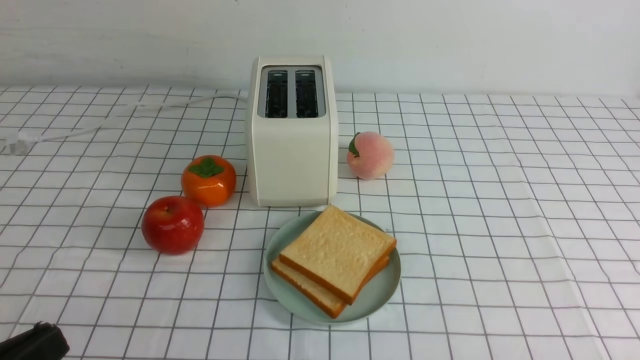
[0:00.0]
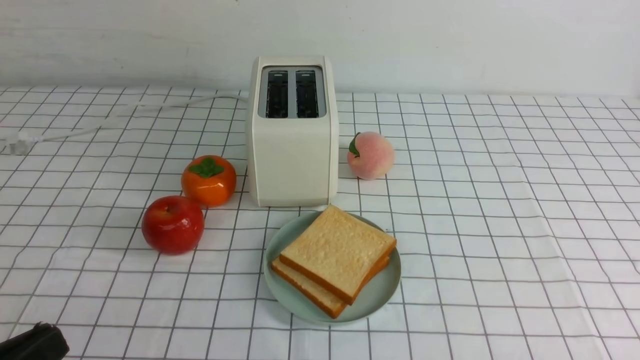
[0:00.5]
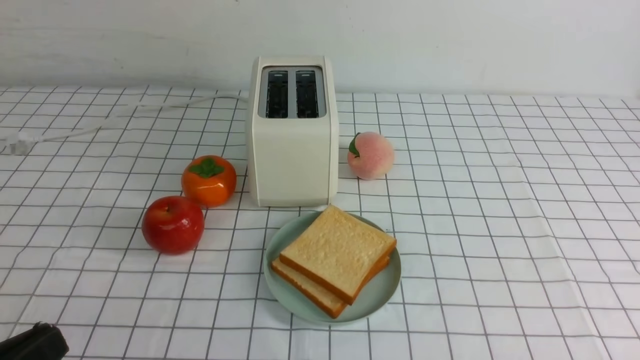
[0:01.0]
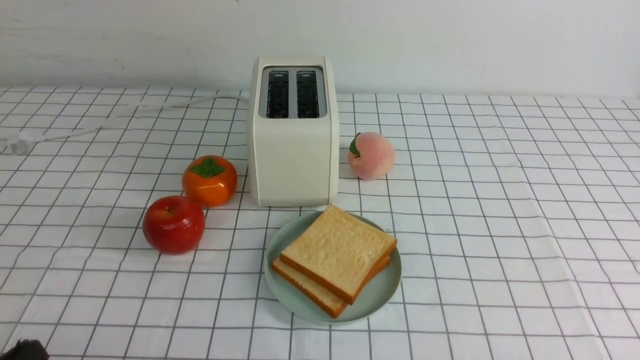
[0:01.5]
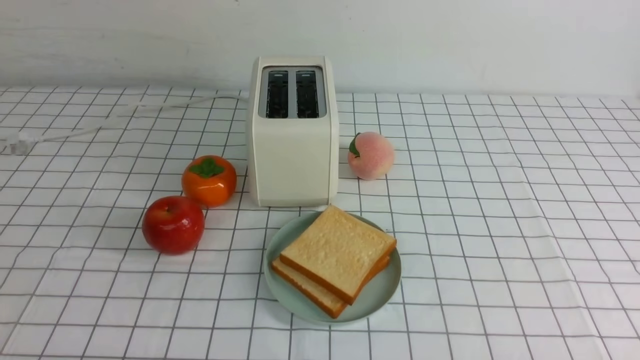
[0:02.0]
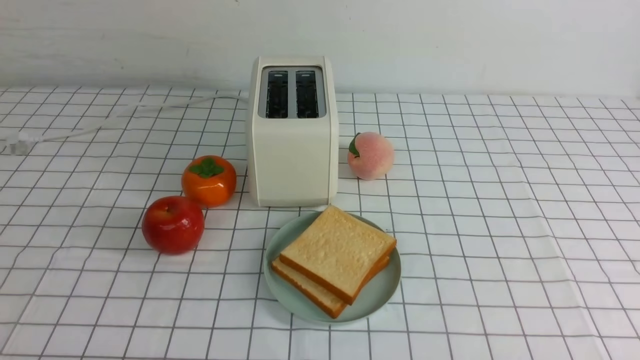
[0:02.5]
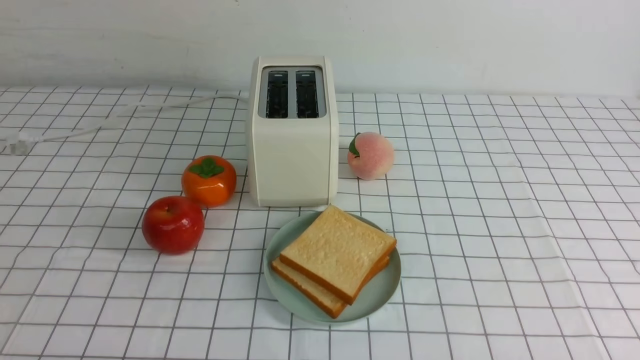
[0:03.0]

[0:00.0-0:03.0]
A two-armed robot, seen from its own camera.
Task of the whole recording: take toasted bread from bread machine on white checkered table place on plate.
0:00.0 to 0:01.5: The left gripper travels downward by about 5 cm.

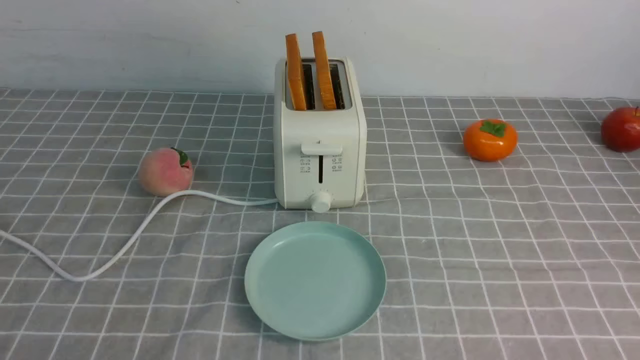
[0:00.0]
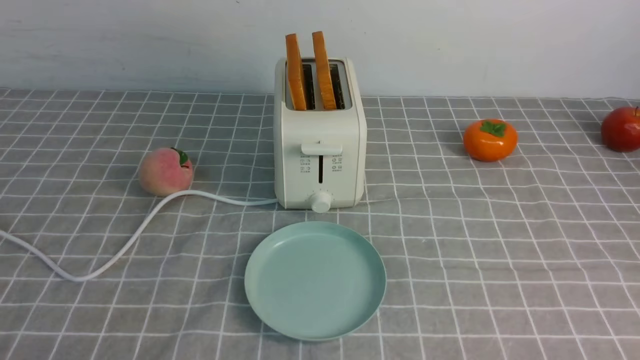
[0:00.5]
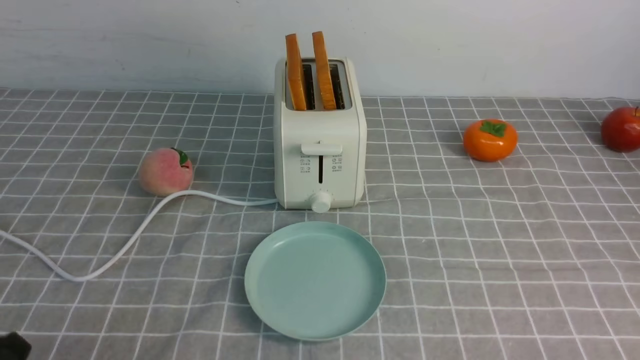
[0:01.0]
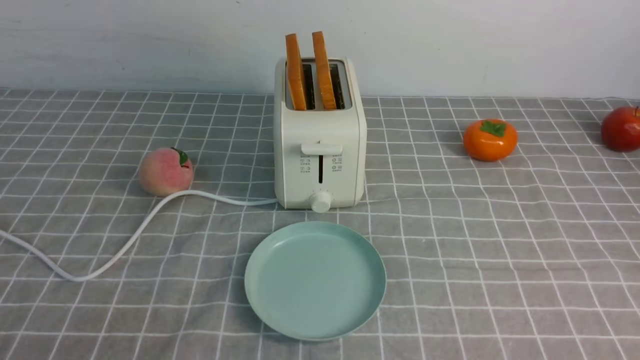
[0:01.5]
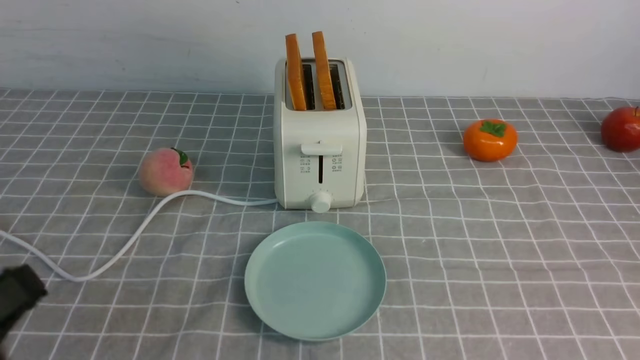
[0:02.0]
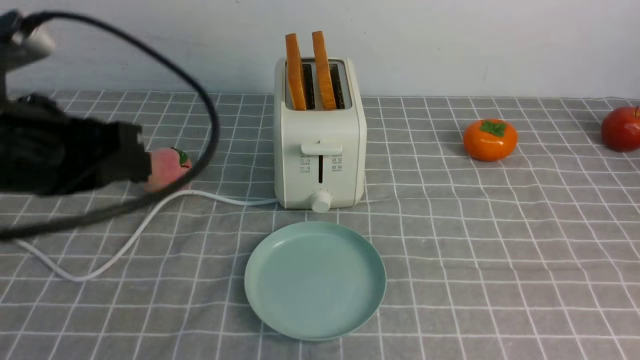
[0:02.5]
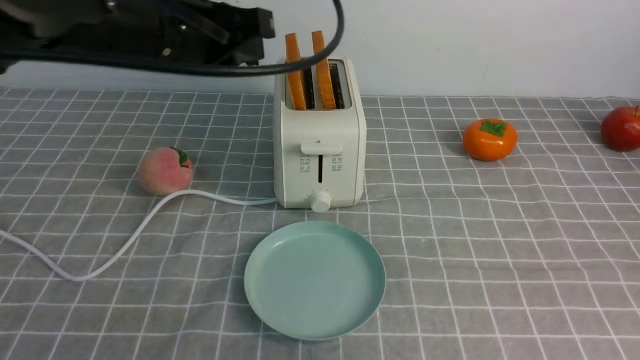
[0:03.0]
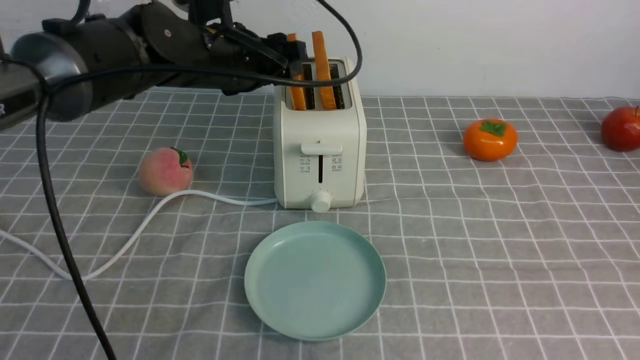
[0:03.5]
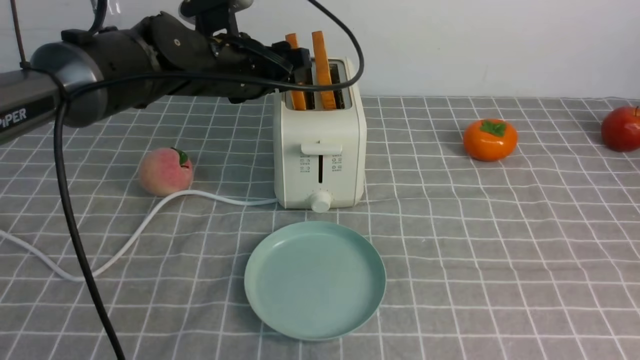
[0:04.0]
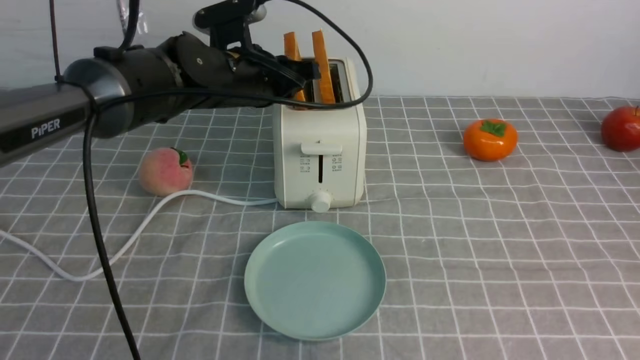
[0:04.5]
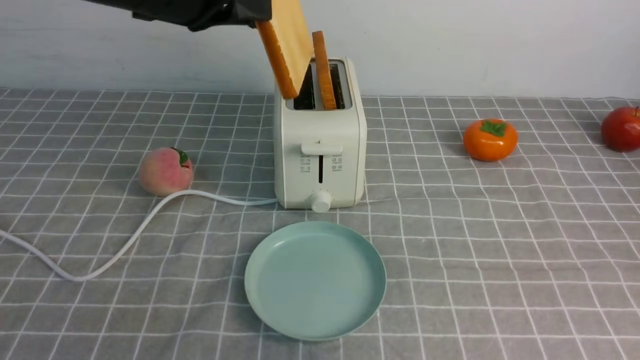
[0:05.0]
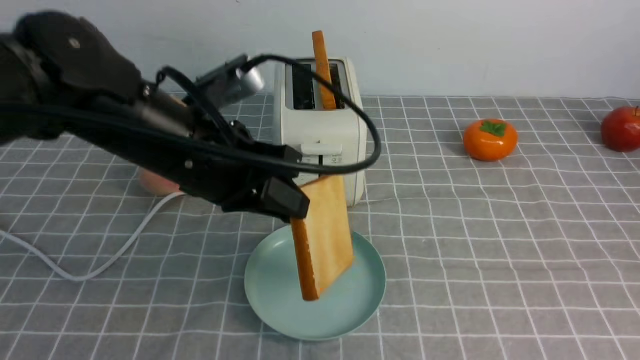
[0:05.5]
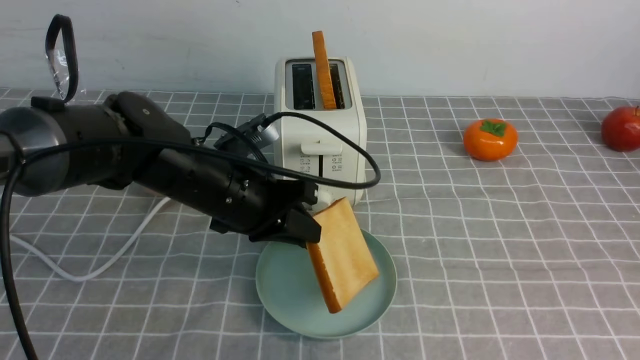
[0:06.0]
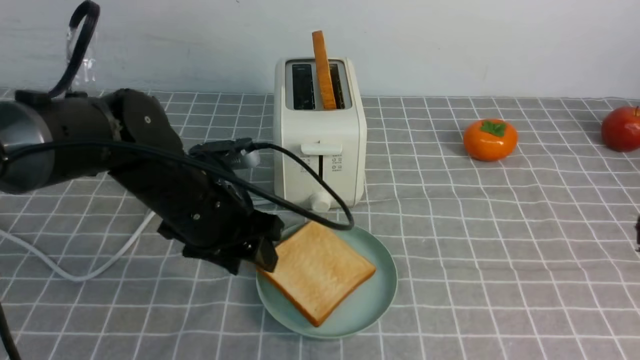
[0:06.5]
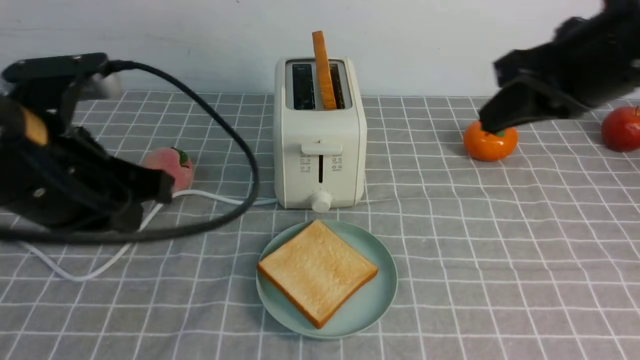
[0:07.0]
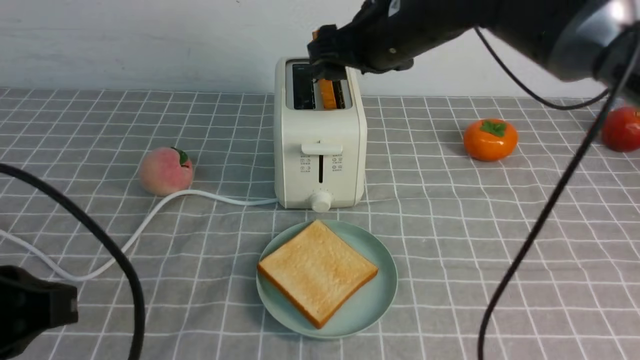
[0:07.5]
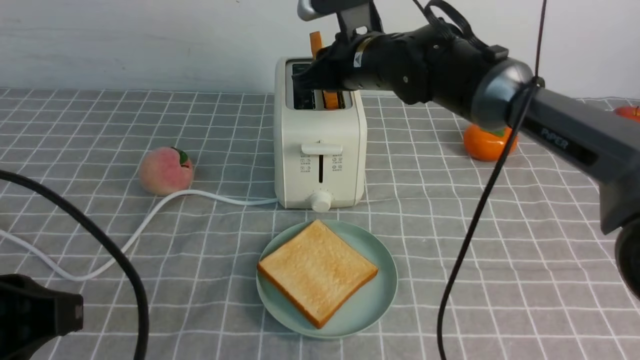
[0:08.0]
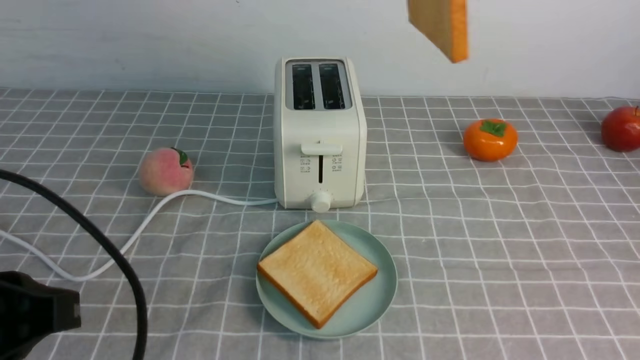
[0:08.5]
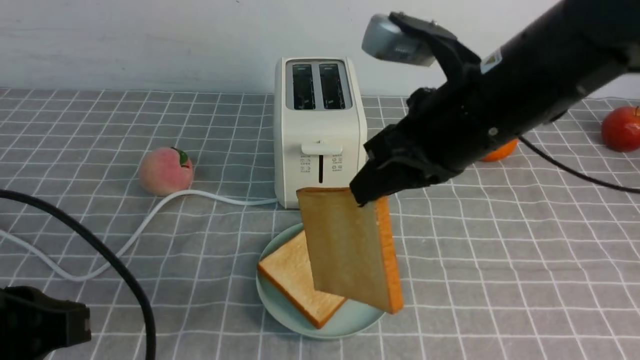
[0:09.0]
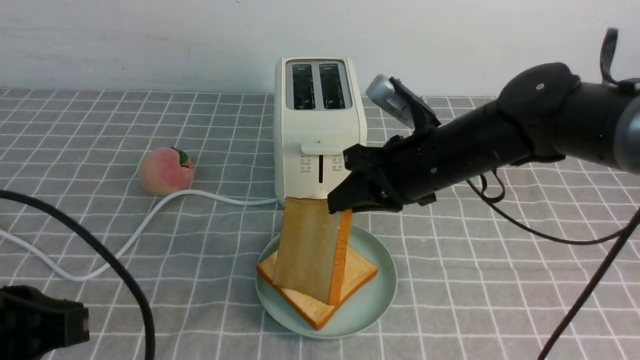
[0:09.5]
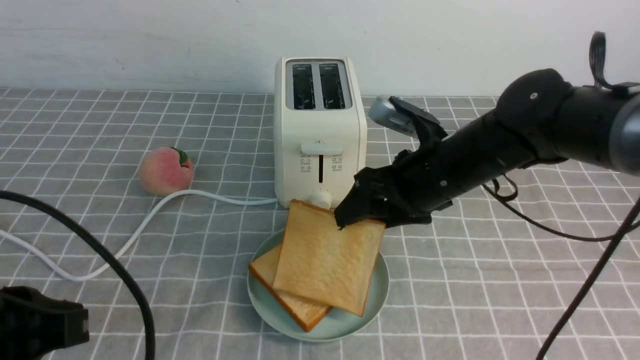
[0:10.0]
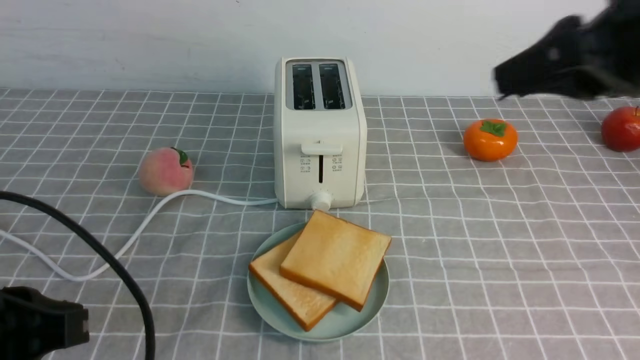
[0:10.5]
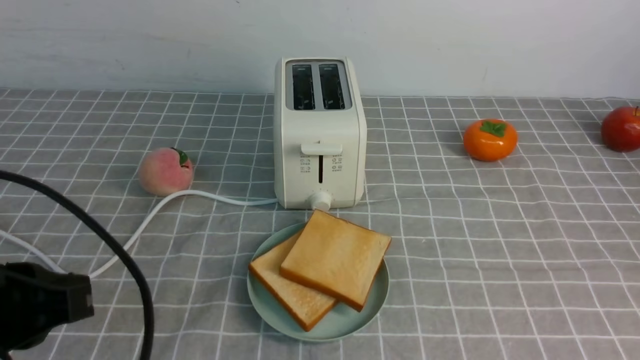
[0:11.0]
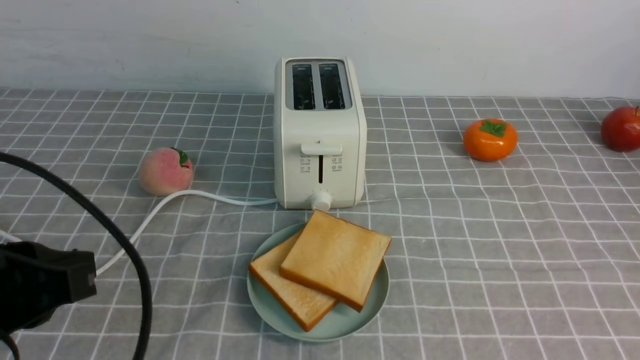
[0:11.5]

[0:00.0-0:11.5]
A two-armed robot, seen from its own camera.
Task of the whole recording: take toasted bread from bread machine on grey coffee table place on plate.
Step, 0:00.0 to 0:04.5: use the left arm to take out a slice of bread.
Step, 0:05.5 to 0:06.5: use the left arm to put a slice of bread into the empty plate.
Step, 0:07.0 to 0:08.0: use the right arm to take out a slice of bread.
Step, 0:08.5 to 0:10.0: use the right arm to put a slice of bread into the plate.
0:00.0 to 0:02.0: The left gripper travels upward by some 10 cm.
0:02.0 to 0:04.0: The right gripper travels forward by some 5 cm. The left gripper is displaced forward by roughly 35 cm, and opens.
0:04.0 to 0:06.0: The left gripper travels backward and downward by some 10 cm, and closes its fingers.
0:06.0 to 0:07.5: The right gripper goes approximately 35 cm forward and to the left, and opens up. The left gripper travels backward, to the left and upward by about 25 cm, and opens and closes again.
0:07.5 to 0:09.5: The right gripper travels downward and backward by roughly 10 cm, and closes.
0:09.5 to 0:11.5: The right gripper goes roughly 40 cm backward and to the right, and opens and closes again.

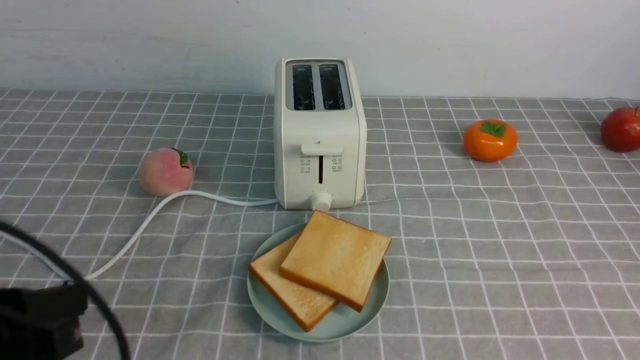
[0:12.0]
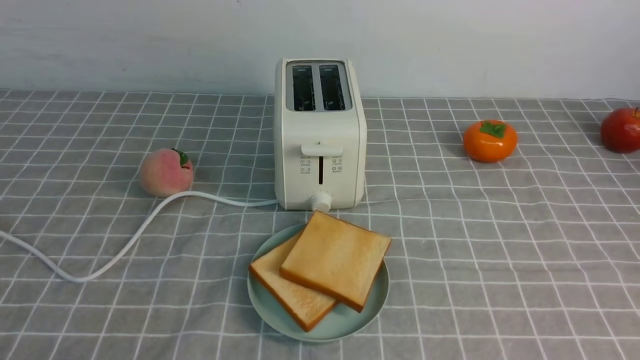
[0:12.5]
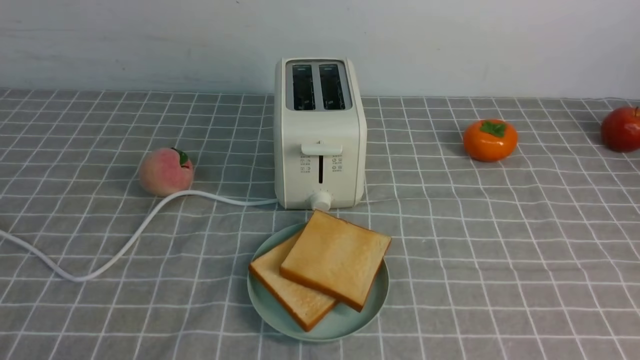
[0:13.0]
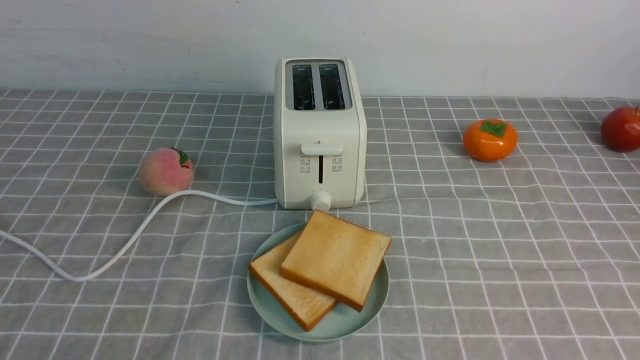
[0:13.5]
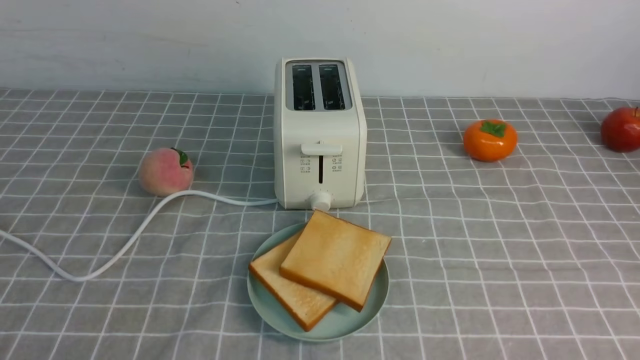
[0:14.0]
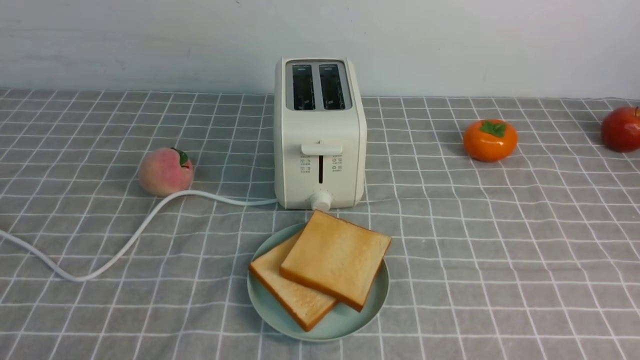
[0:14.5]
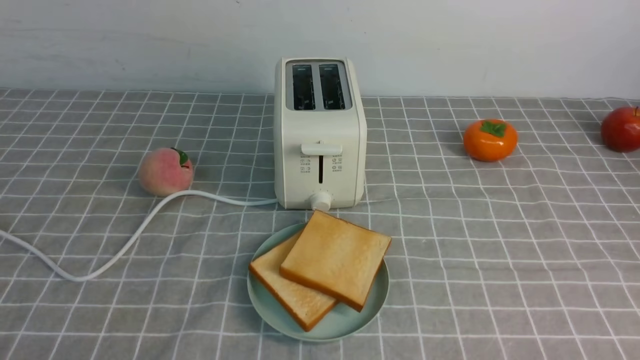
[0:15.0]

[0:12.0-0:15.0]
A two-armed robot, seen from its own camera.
Task of the whole recording: take toasted bread from bread machine on grey coffee table place on plate.
0:12.0 to 0:13.5: The left gripper shifts roughly 10 cm downward.

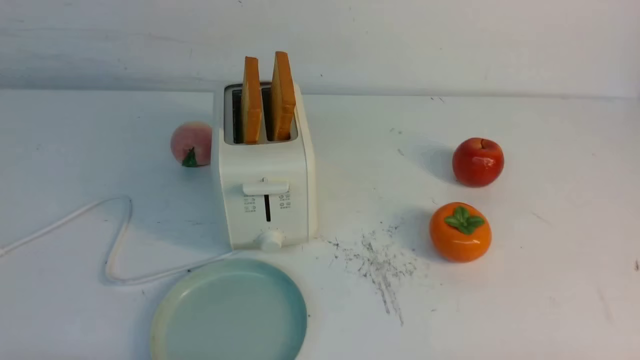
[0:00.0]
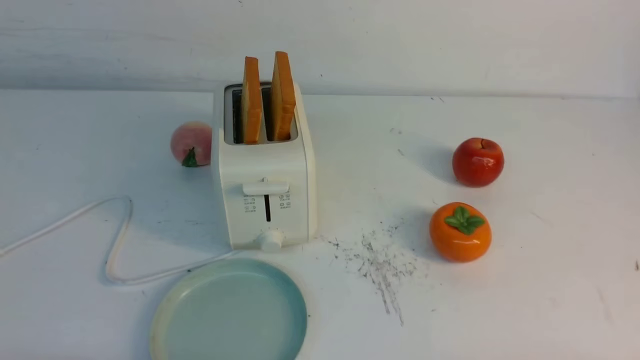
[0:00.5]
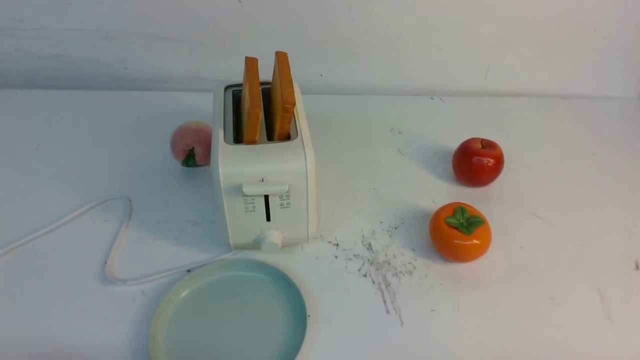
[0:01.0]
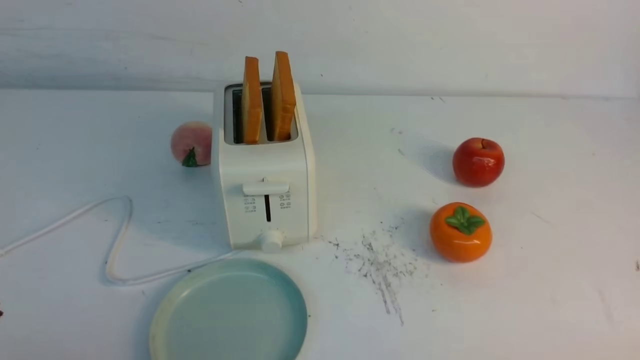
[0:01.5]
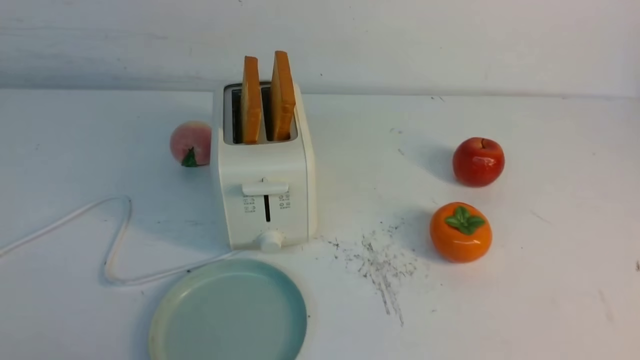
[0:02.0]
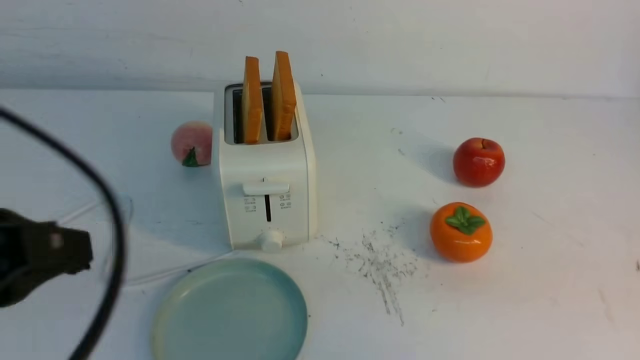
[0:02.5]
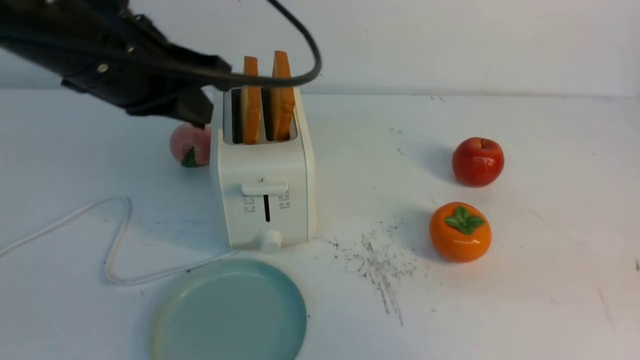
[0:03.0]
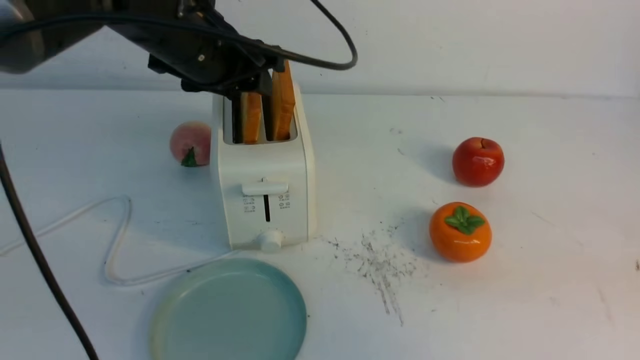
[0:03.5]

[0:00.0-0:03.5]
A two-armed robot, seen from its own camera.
Task of the whole recording: take toasted bread from bread machine on white table place on plate.
0:02.0 to 0:03.5: The right gripper is displaced forward and upward by some 10 cm, and closes up. The left gripper shifts approximately 35 cm forward, and opens its fingers.
